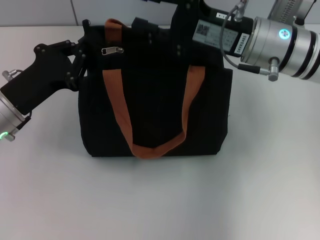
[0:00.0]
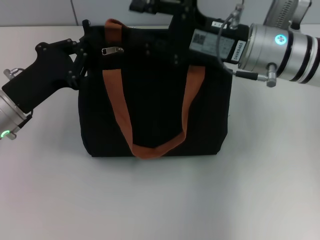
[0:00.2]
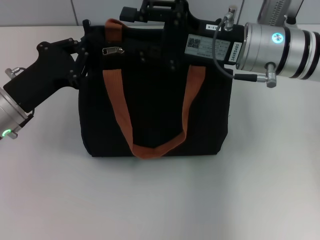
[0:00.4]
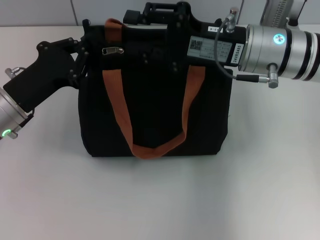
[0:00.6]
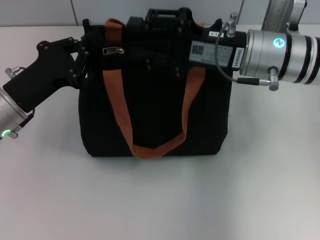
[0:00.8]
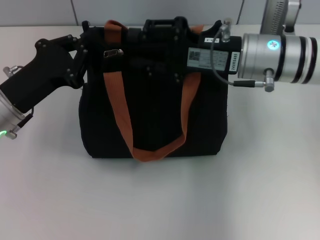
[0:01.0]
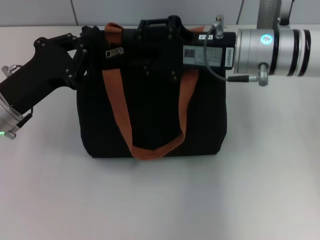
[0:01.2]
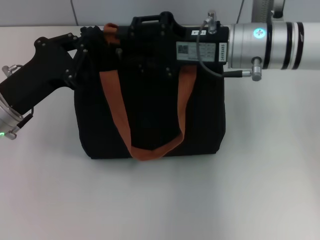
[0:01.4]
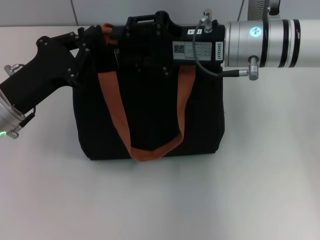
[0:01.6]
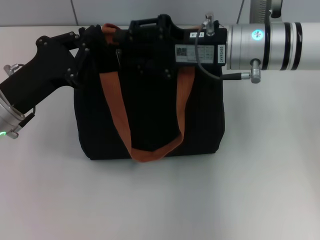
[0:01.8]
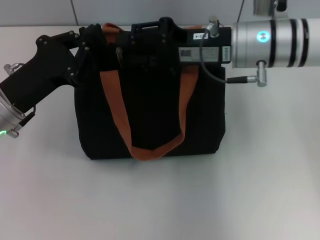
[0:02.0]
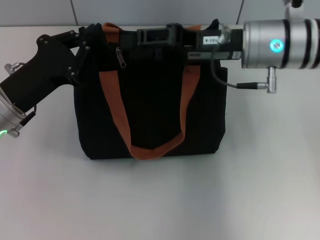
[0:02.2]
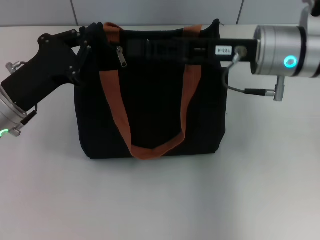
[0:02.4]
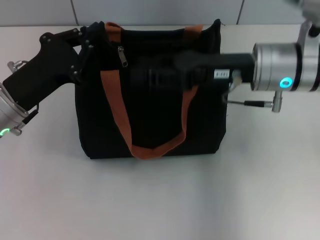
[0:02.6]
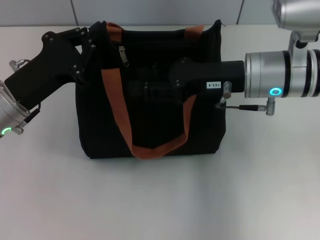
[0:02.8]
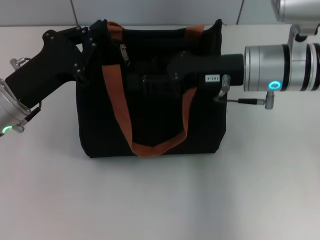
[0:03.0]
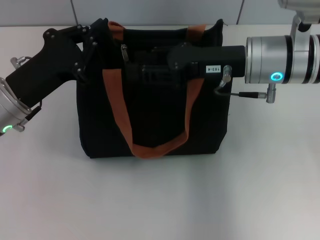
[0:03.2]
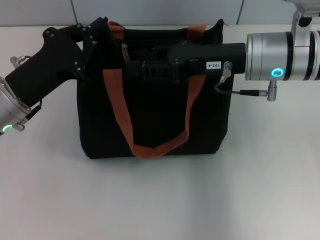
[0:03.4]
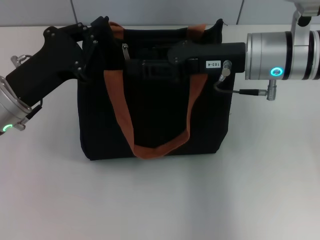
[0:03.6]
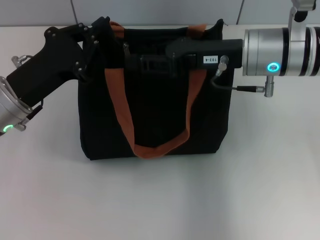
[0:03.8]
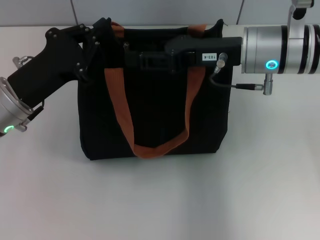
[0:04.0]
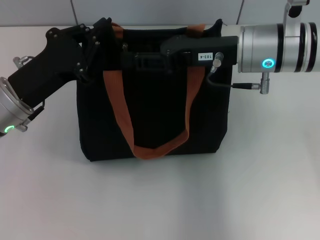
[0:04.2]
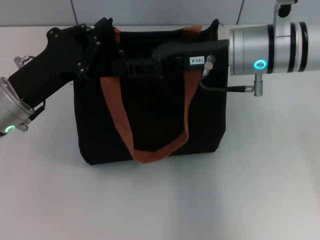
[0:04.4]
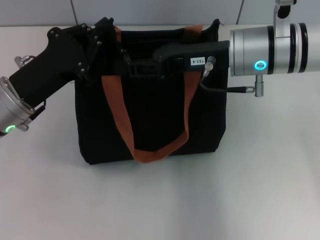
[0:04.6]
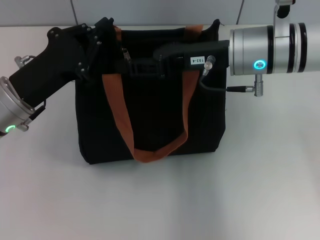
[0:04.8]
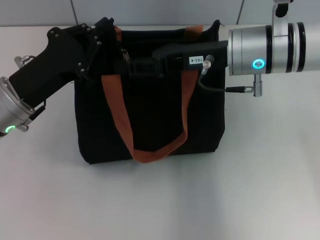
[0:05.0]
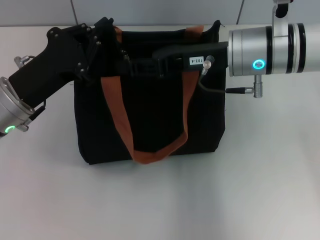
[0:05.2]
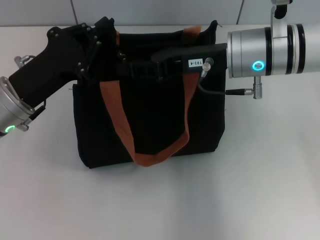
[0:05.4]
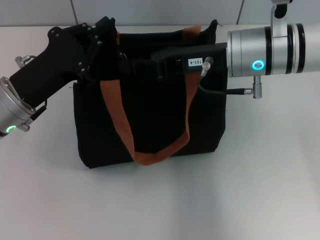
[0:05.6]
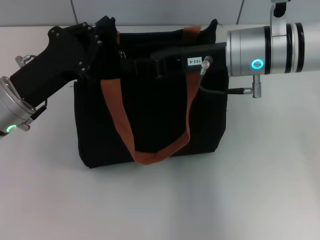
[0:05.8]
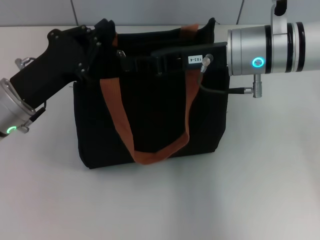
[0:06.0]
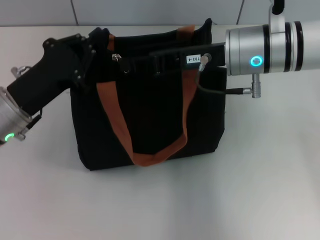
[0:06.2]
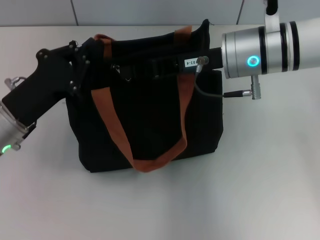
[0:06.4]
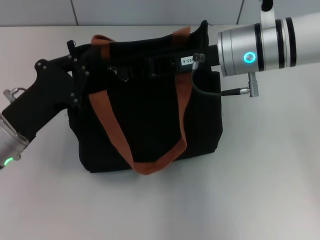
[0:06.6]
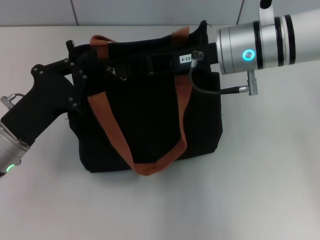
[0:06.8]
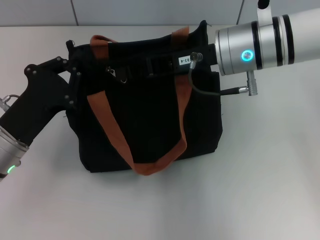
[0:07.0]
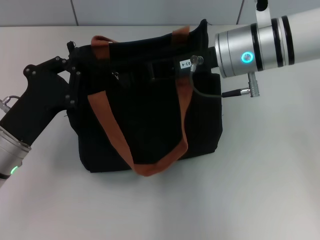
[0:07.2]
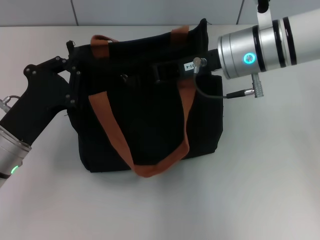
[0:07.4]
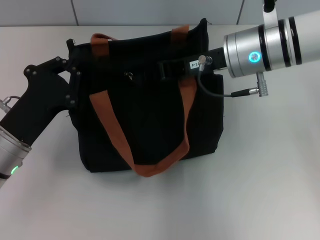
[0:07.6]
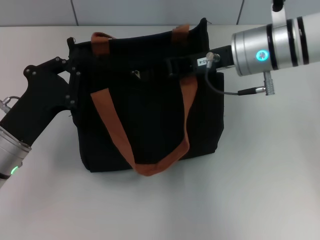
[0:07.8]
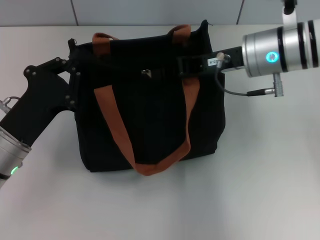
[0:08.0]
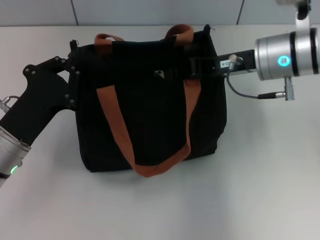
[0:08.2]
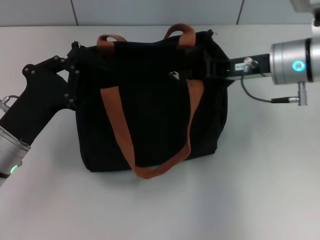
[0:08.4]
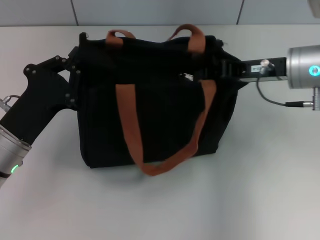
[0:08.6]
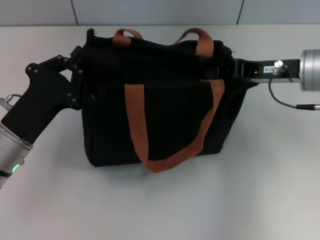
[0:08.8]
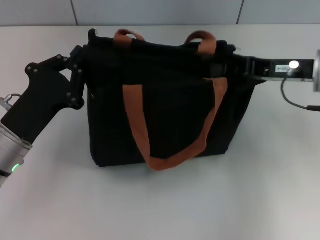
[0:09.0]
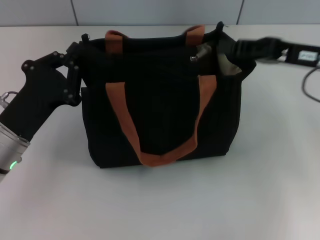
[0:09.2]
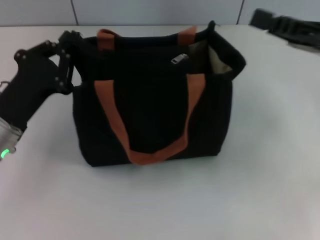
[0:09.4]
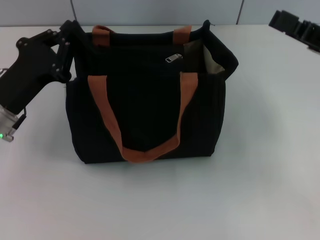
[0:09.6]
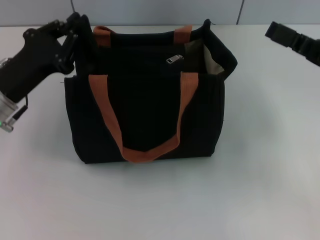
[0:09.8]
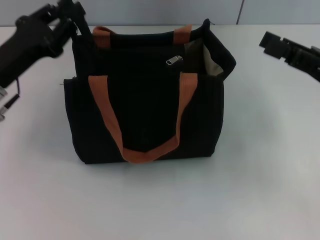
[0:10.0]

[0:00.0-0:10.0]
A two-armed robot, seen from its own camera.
Step, 0:00.0 to 0:09.0: Pull up the zipper with your right hand.
0:00.0 to 0:01.4: There are only small adjustments of the grippers.
0:02.8 to 0:04.2: There are only small adjustments of the grippers.
0:04.2 to 0:05.8: The right gripper closes its fingers.
0:05.8 to 0:07.2: The left gripper changes place by some 5 cm.
0:07.2 to 0:08.6: The right gripper travels to the right by roughly 10 cm.
0:08.6 to 0:10.0: The right gripper goes some 10 cm backward and to the right, and opens. The left gripper travels forward and upward by some 10 cm.

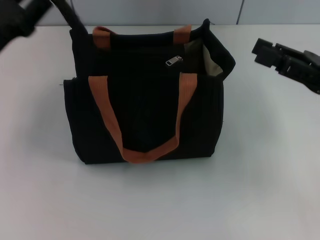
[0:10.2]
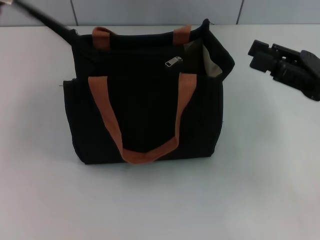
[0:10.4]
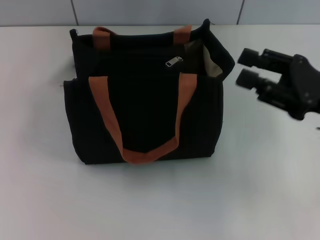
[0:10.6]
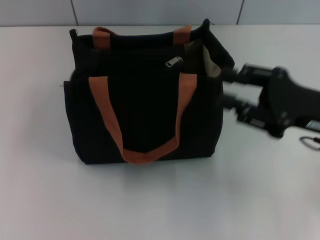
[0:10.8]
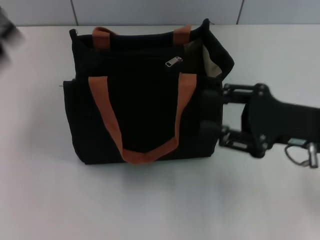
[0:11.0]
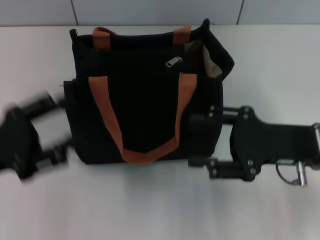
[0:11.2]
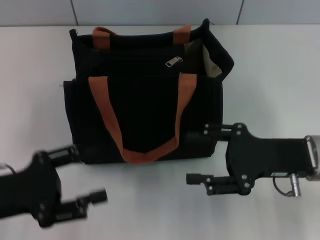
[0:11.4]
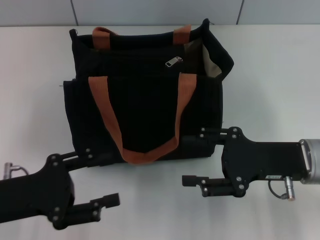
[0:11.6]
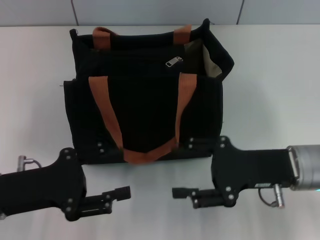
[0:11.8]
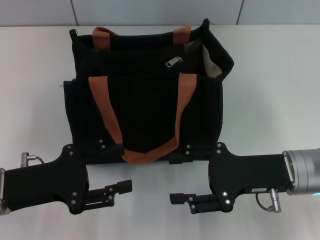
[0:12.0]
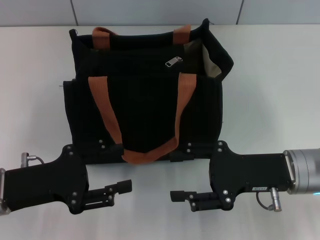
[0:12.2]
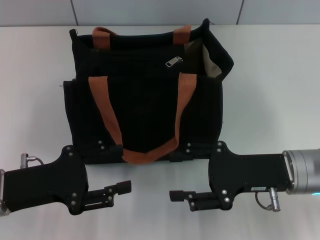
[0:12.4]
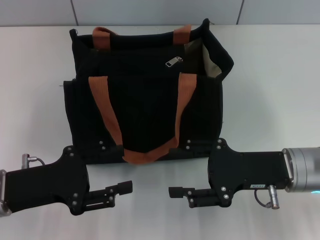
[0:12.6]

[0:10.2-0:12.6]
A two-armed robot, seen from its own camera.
0:10.2 to 0:11.4: The right gripper heads to the left and downward, covering roughly 10 cm. The left gripper shifts some 10 cm backward, and opens its fingers.
0:11.4 to 0:12.6: There are only small adjustments of the grippers.

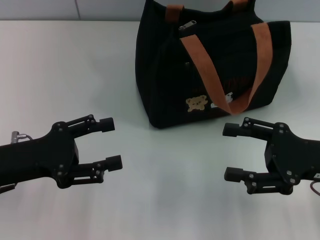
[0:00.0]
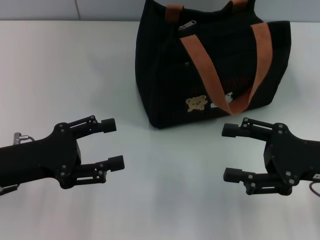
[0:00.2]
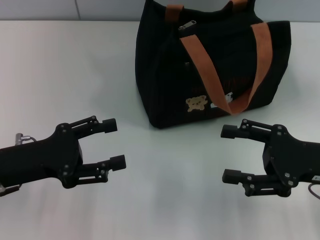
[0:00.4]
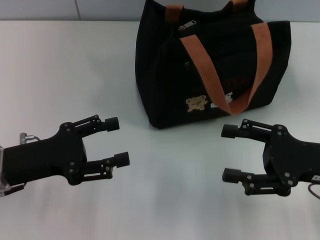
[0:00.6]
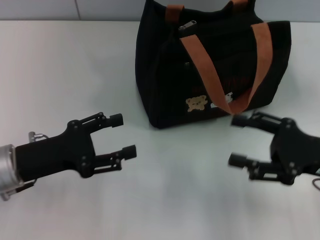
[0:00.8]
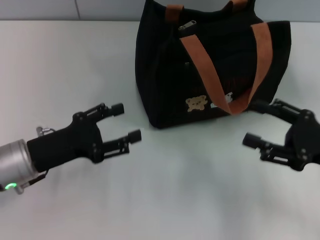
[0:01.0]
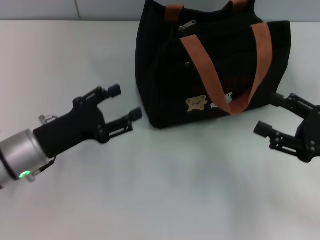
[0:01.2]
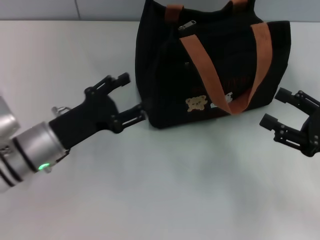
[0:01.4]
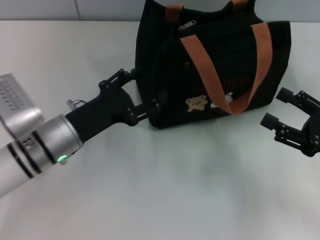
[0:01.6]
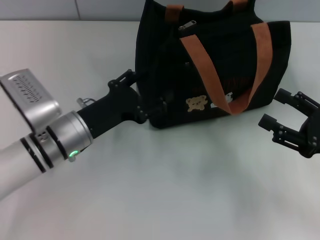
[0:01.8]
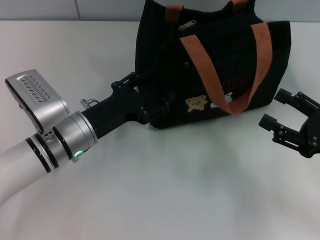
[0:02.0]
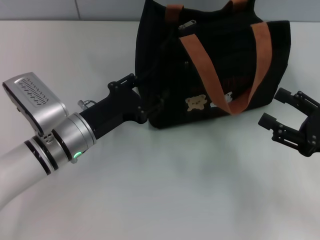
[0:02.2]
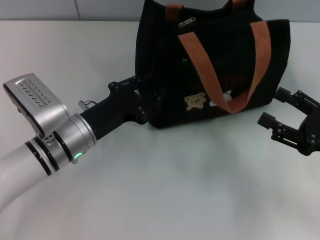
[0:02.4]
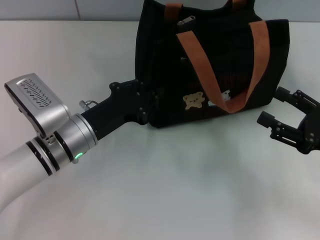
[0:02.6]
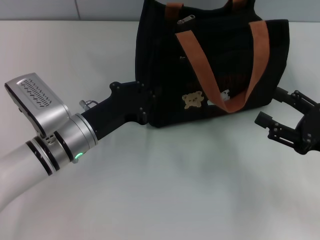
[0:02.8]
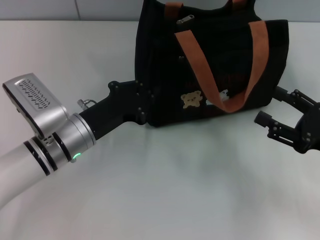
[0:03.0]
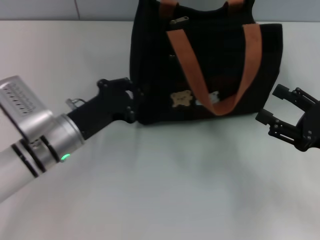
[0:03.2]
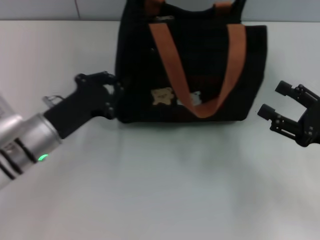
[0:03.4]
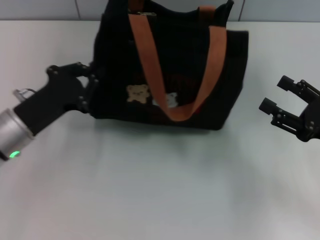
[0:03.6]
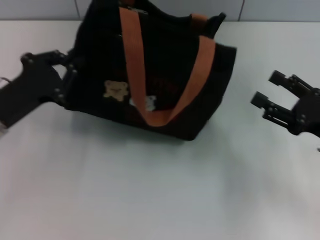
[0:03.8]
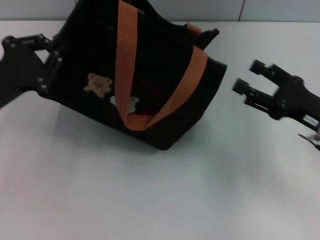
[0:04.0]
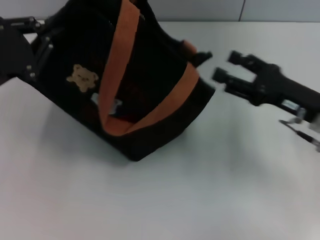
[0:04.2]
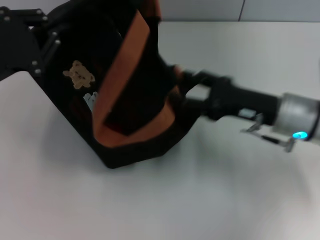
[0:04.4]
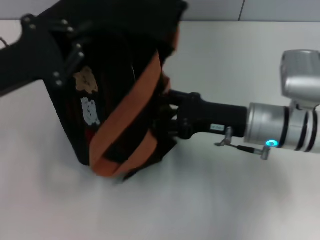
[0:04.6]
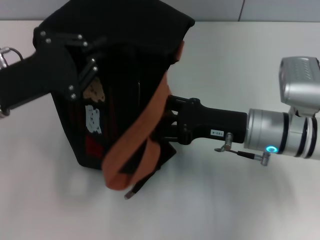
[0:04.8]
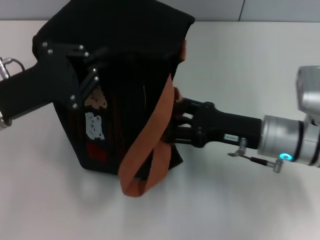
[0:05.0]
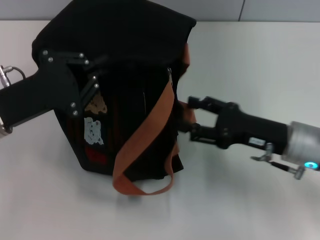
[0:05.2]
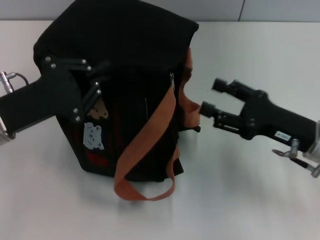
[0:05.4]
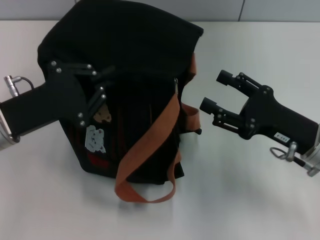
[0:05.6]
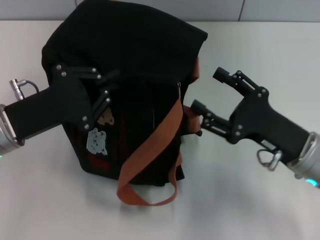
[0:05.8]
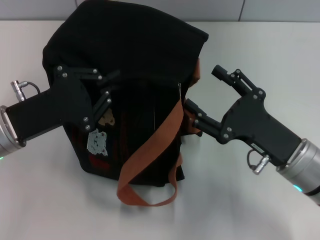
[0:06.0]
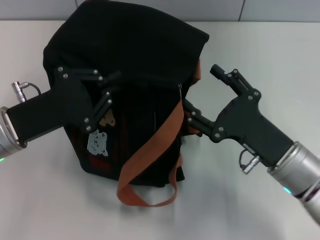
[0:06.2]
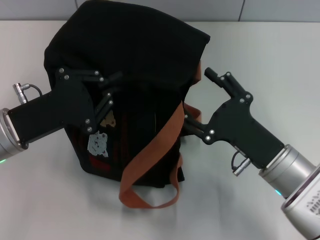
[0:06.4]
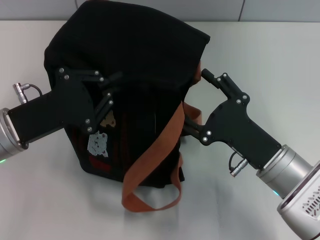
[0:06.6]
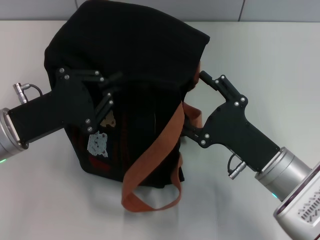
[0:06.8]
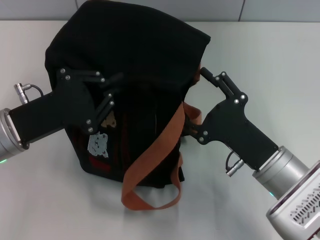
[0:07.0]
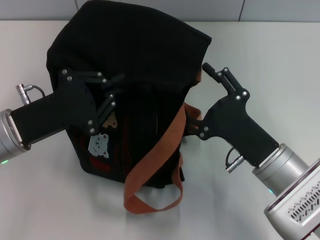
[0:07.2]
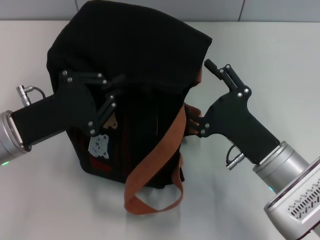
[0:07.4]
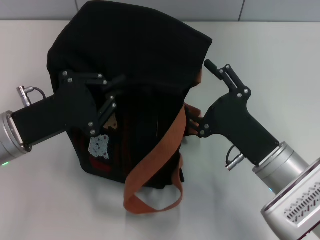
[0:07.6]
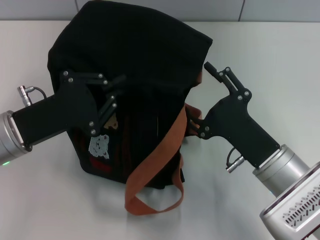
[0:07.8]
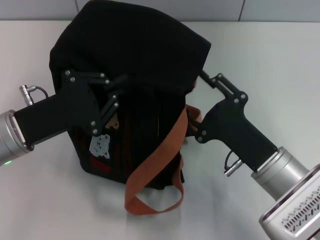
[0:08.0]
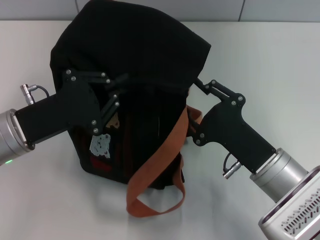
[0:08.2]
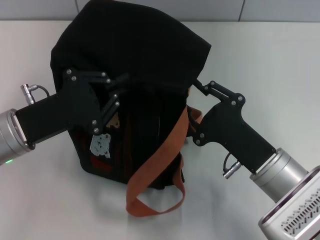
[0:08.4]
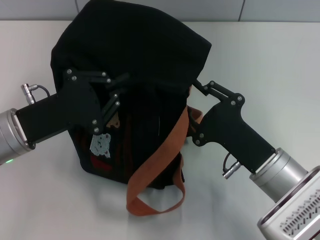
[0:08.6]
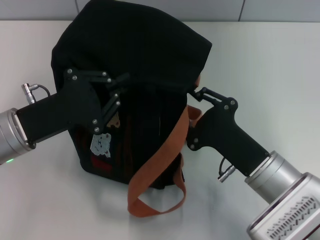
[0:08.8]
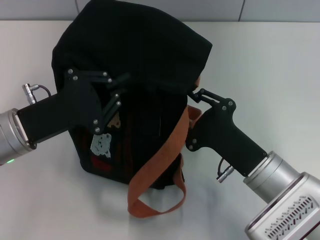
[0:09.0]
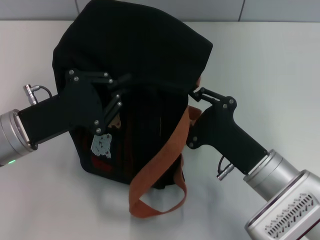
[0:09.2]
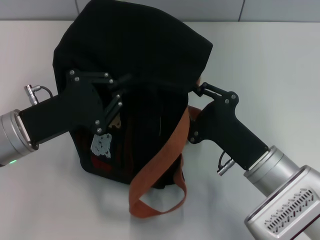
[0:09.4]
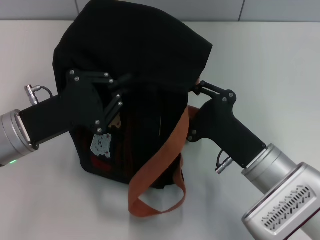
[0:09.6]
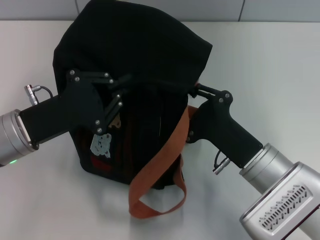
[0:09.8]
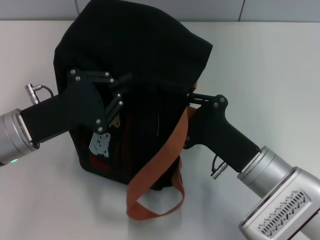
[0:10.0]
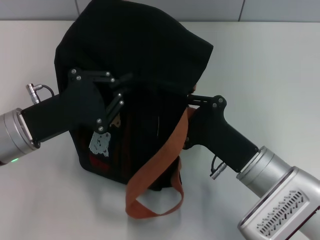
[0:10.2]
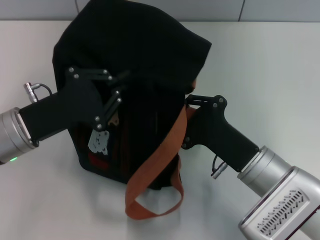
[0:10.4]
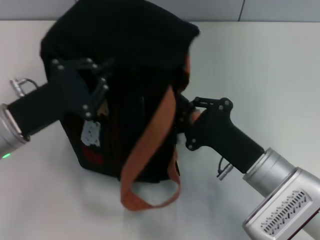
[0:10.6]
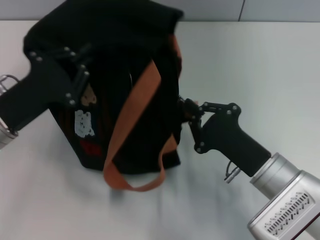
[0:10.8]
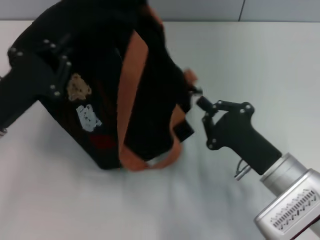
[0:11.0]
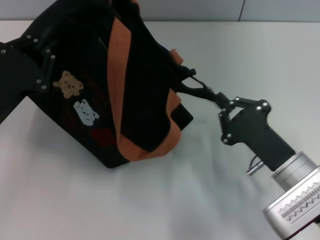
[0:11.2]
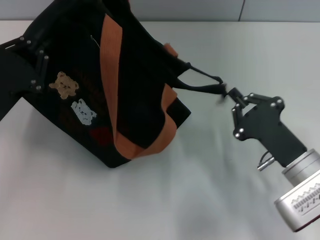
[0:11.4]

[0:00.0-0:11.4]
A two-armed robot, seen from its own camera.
0:00.0 to 0:01.4: The right gripper moves roughly 5 cm, while the left gripper shifts approximately 5 cm to the right.
0:01.4 to 0:02.8: The left gripper closes.
0:02.8 to 0:04.2: The right gripper heads forward and to the left, covering some 10 cm, while the left gripper heads to the left and upward, covering about 15 cm.
0:04.2 to 0:05.6: The right gripper goes to the left and returns, about 10 cm each way. Meanwhile the left gripper moves some 5 cm.
0:05.6 to 0:07.2: The right gripper travels to the left by roughly 5 cm.
0:07.2 to 0:08.6: The right gripper closes its fingers.
0:08.6 to 0:10.0: There are only small adjustments of the grippers.
0:10.0 to 0:11.4: The left gripper ends up about 5 cm from where it was. Meanwhile the right gripper moves to the right, roughly 5 cm.
